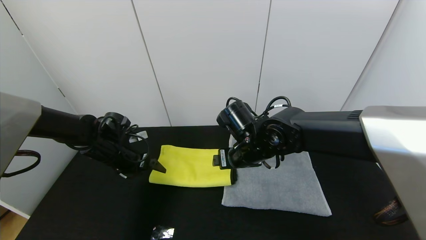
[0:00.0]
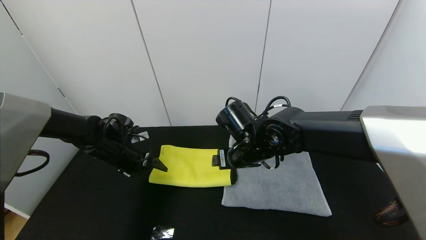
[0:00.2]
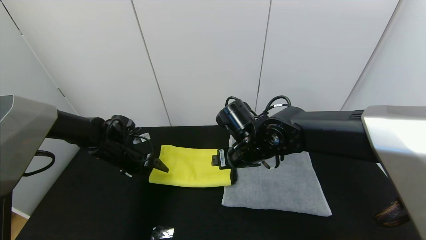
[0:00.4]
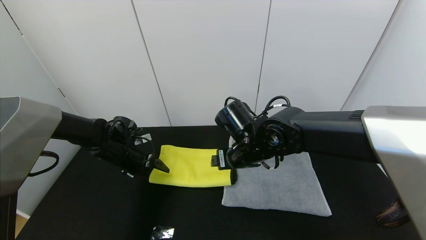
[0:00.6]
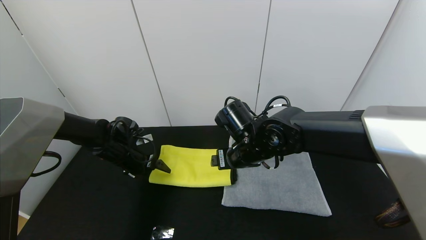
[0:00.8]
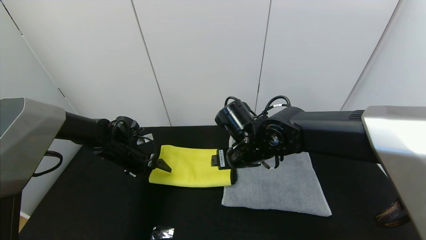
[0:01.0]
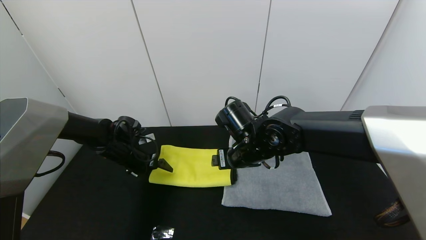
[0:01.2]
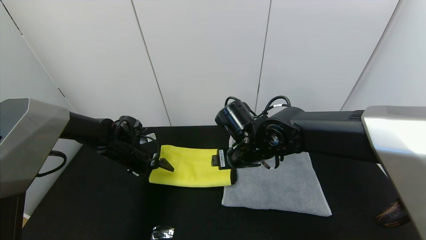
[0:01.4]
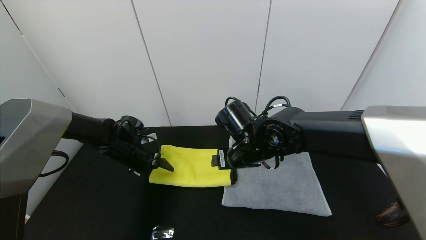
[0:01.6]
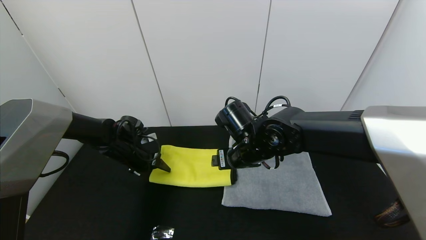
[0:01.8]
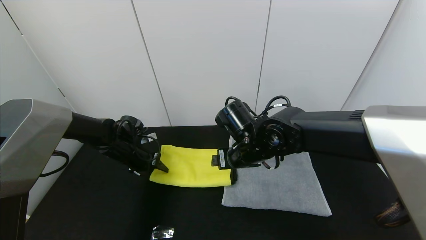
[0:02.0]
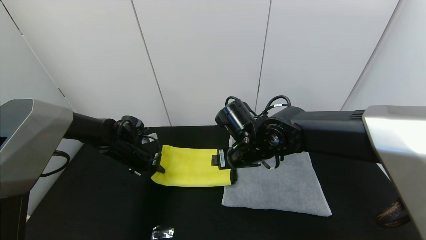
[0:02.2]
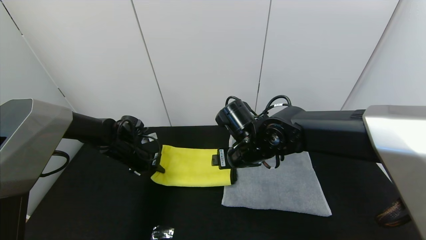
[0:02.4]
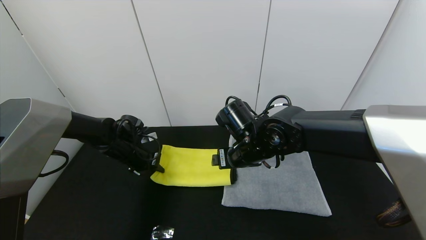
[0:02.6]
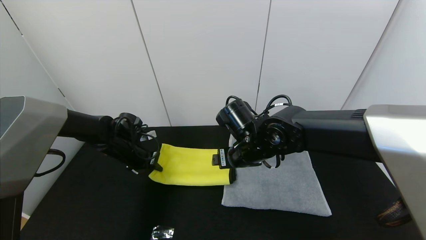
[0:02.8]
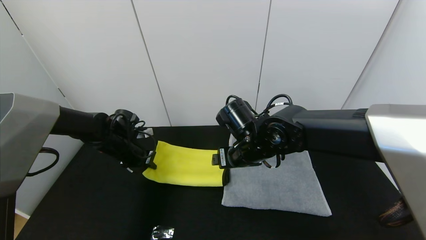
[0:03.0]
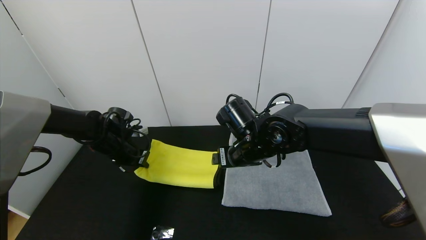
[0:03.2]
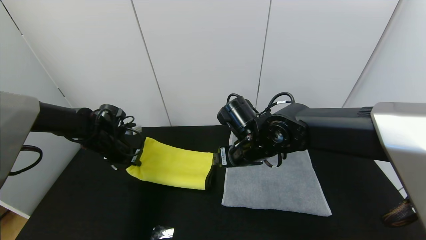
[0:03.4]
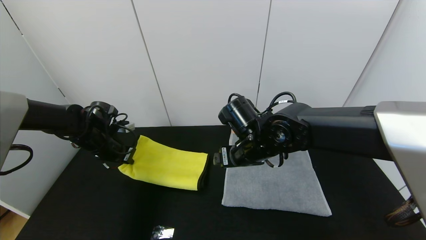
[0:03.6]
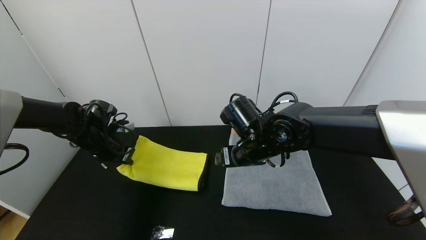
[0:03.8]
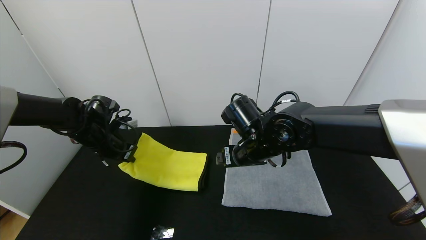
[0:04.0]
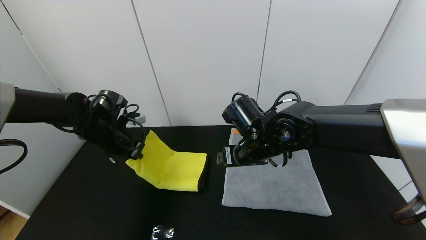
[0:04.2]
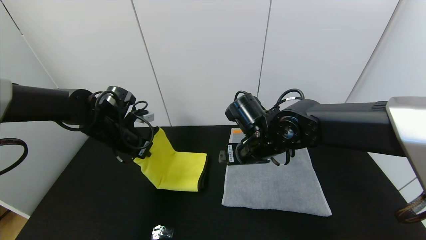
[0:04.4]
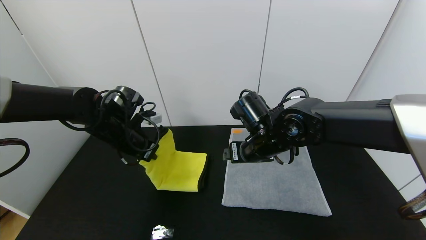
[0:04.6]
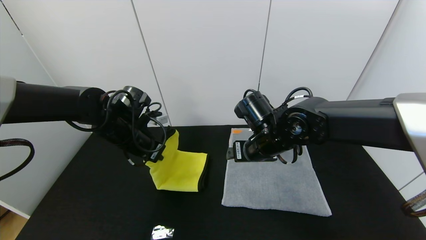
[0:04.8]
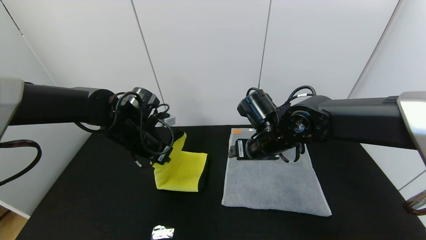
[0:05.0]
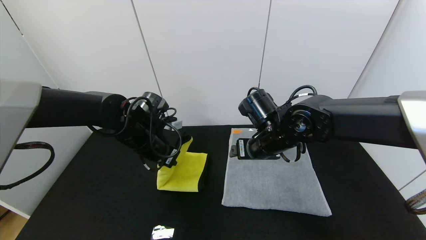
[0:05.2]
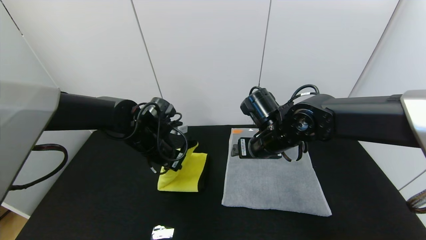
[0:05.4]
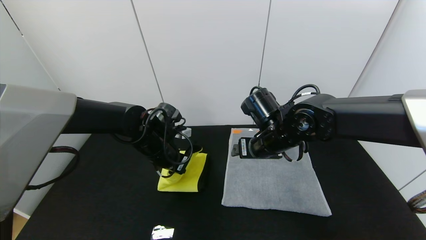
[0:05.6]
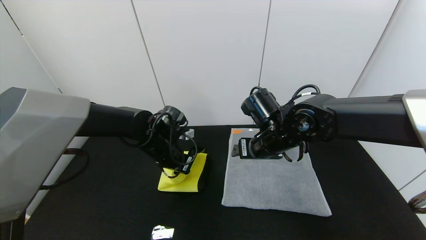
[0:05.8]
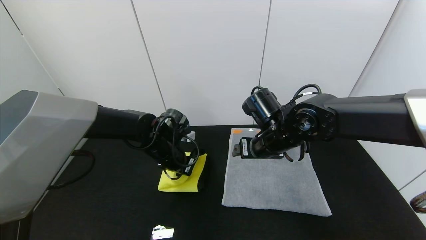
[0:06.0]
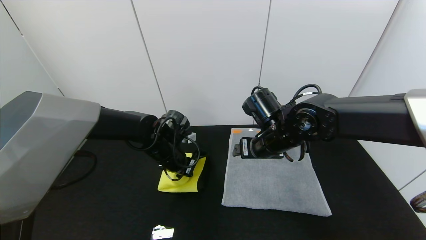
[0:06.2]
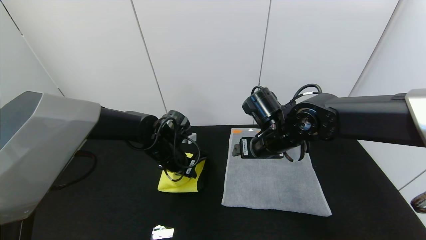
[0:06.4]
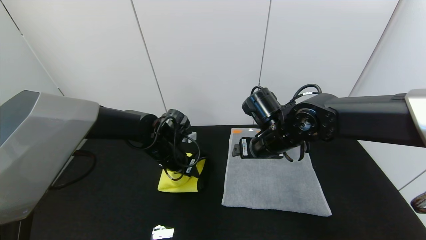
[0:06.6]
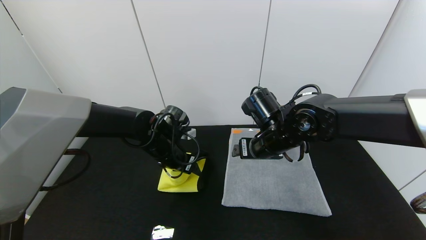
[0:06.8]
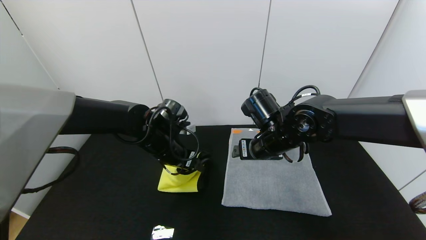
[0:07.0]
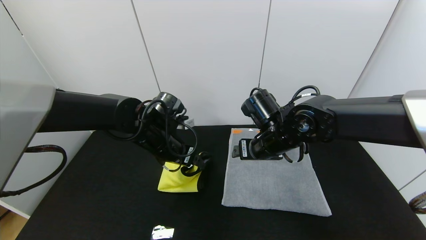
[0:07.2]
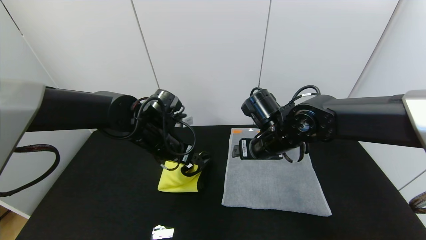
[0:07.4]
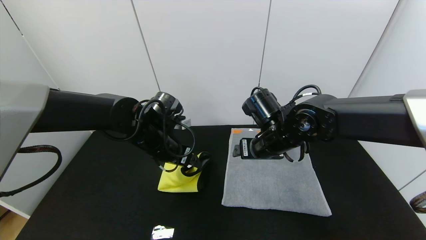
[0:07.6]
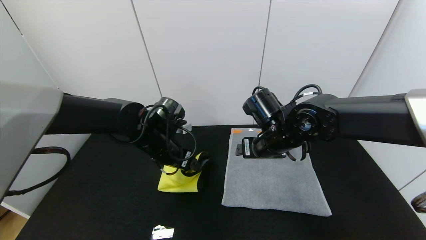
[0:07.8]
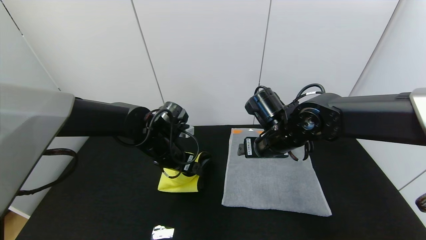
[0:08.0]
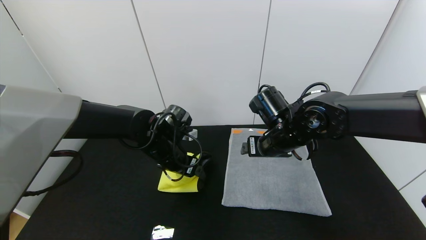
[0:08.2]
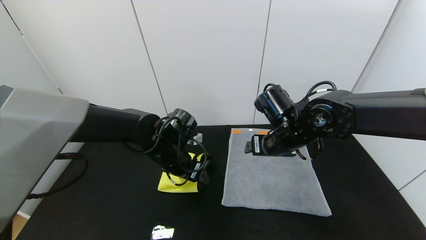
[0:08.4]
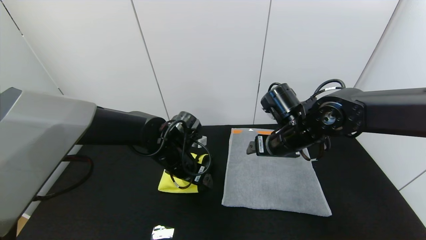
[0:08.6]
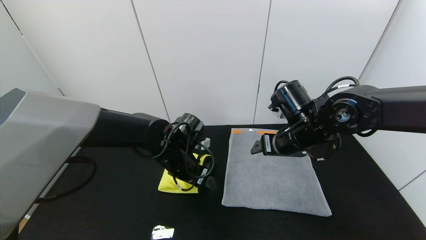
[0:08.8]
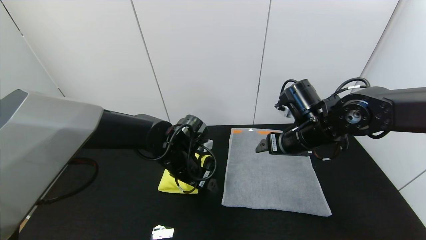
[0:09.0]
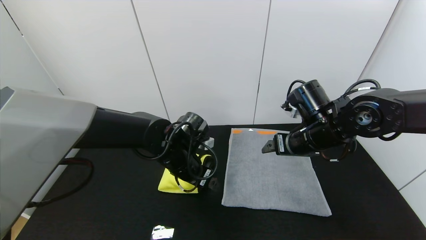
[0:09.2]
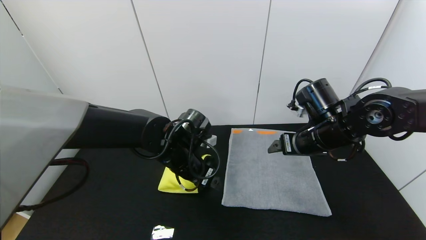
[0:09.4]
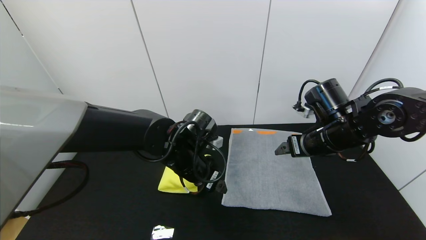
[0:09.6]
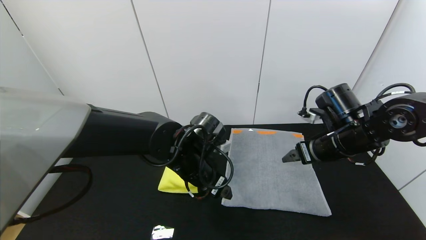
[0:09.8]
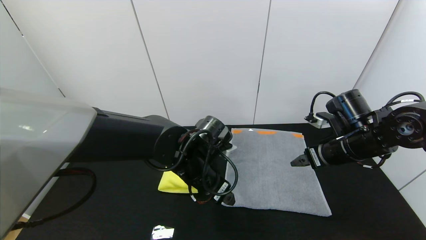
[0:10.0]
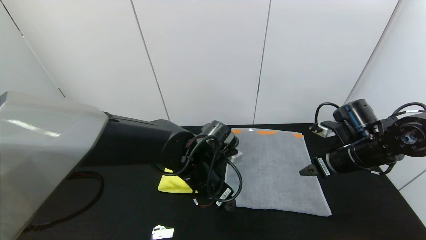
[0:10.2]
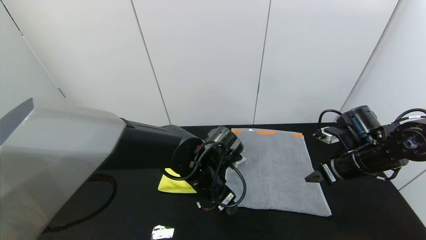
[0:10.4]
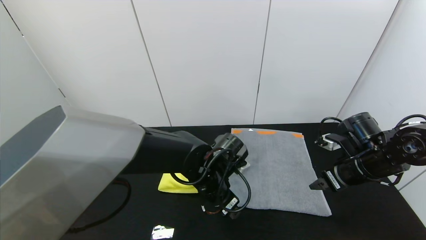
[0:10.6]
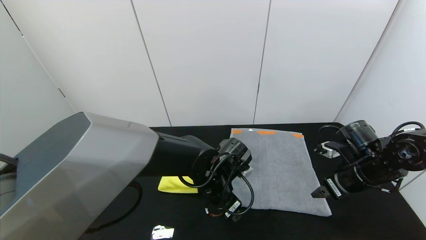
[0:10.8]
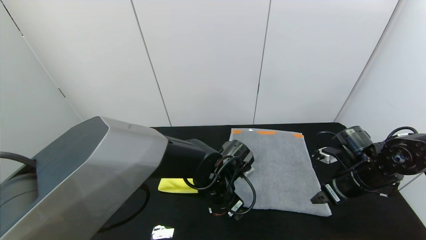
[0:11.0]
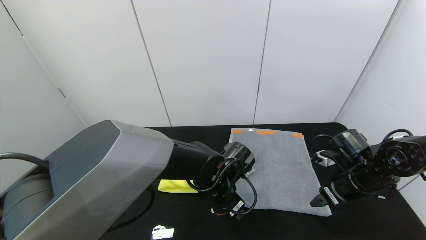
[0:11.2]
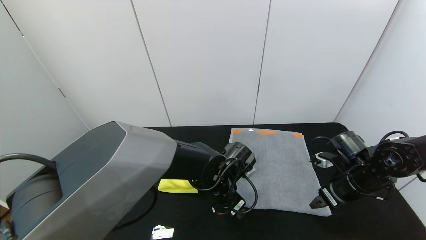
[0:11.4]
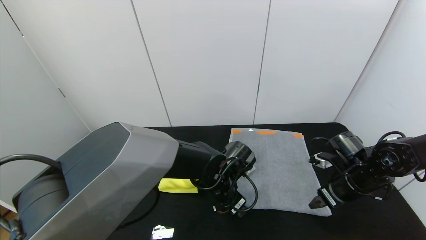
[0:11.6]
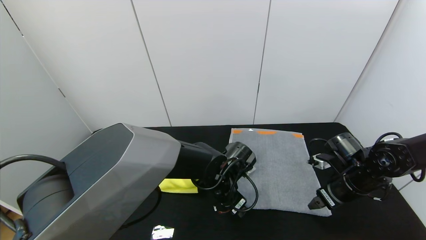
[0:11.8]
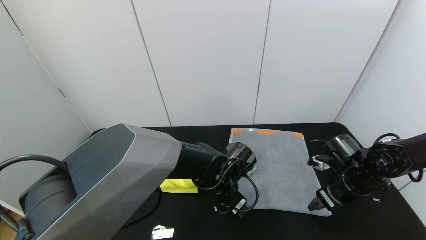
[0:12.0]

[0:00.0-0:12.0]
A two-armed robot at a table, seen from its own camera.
Task of the whole recording: Use the gripper to fold the yellow towel and grey towel in half twice,then put the yellow towel on the grey towel.
Step, 0:00.0 to 0:08.2: Fold the yellow towel from left to right with left gripper.
0:00.0 to 0:01.6: The grippers move only a little.
0:01.6 to 0:03.0: The left gripper closes its fingers.
0:03.0 to 0:04.4: The left gripper moves upward, approximately 5 cm.
0:04.4 to 0:06.0: The left gripper shifts roughly 10 cm to the right and downward.
0:06.0 to 0:07.6: The left gripper changes place by about 5 cm, and opens up.
0:07.6 to 0:09.0: The right gripper travels to the right by some 5 cm. The left gripper ends up approximately 5 cm from where it was.
0:09.0 to 0:10.4: The right gripper travels to the right by about 10 cm, while the left gripper shifts approximately 5 cm to the right.
0:10.4 to 0:12.0: The grippers both shift downward by some 5 cm.

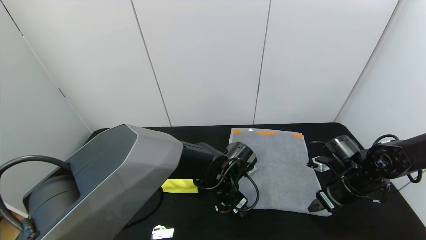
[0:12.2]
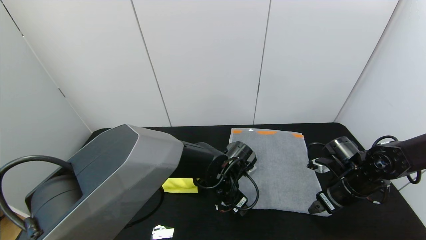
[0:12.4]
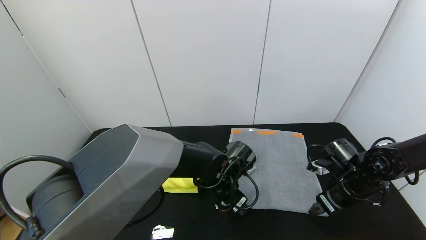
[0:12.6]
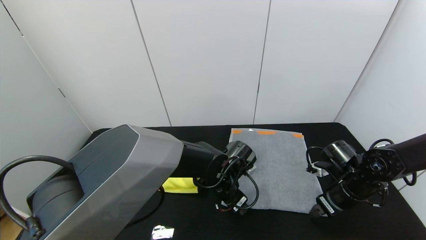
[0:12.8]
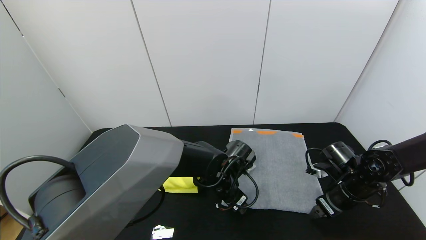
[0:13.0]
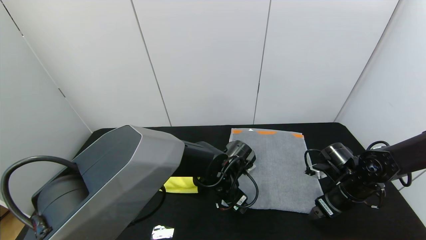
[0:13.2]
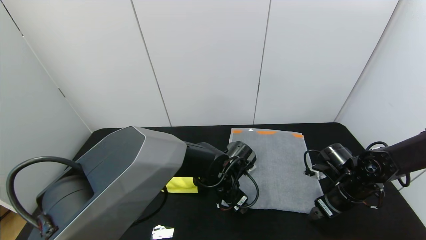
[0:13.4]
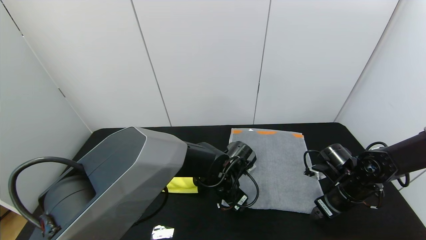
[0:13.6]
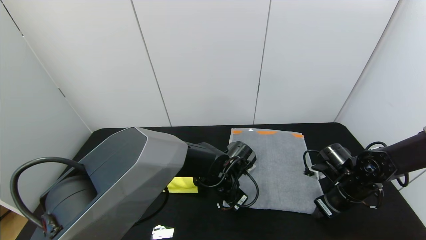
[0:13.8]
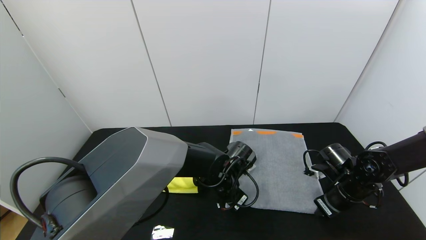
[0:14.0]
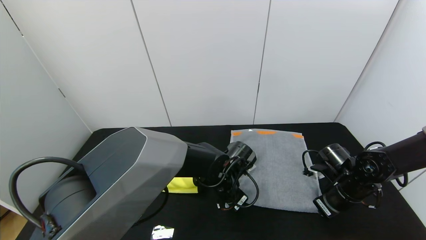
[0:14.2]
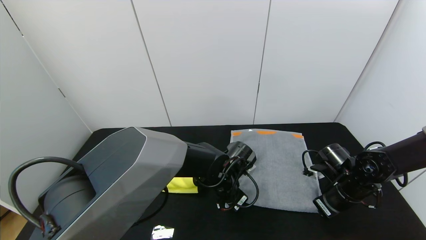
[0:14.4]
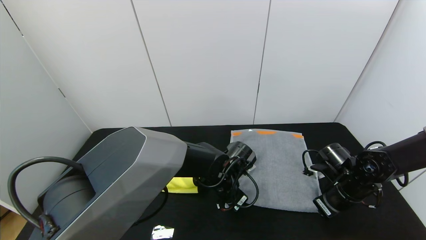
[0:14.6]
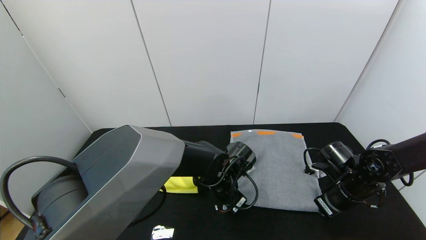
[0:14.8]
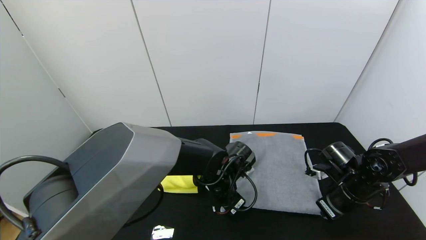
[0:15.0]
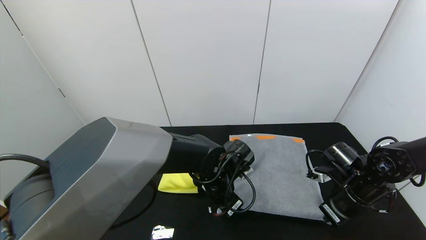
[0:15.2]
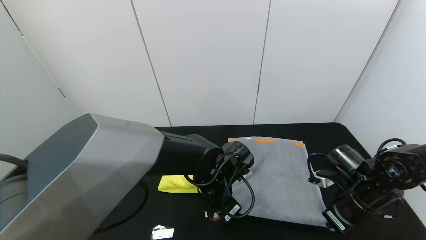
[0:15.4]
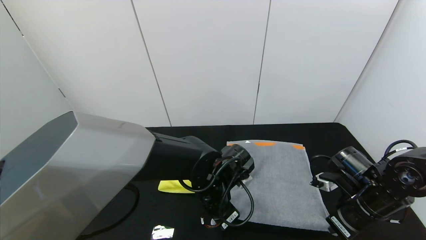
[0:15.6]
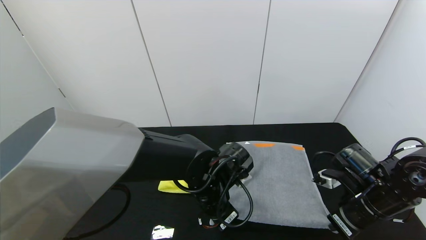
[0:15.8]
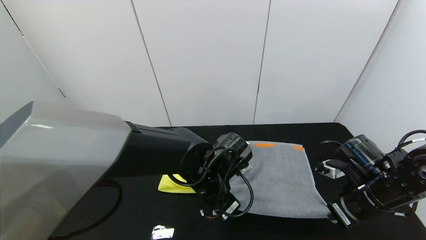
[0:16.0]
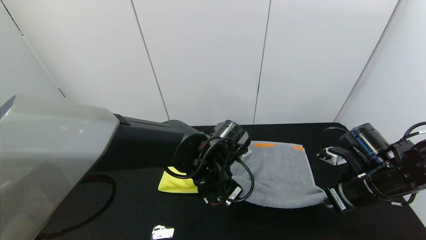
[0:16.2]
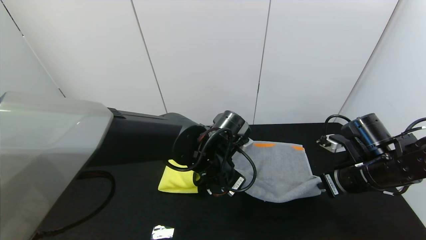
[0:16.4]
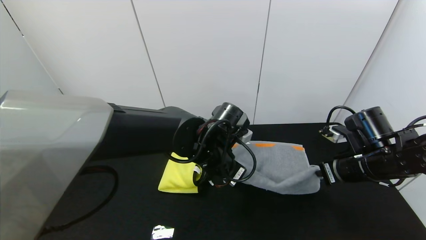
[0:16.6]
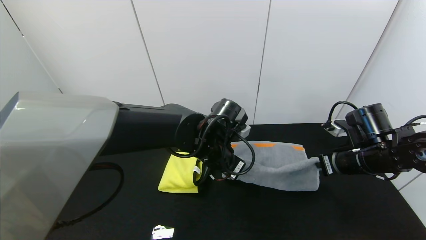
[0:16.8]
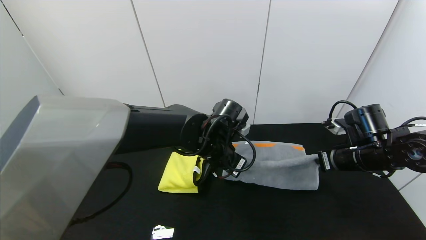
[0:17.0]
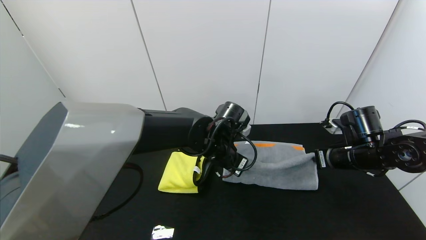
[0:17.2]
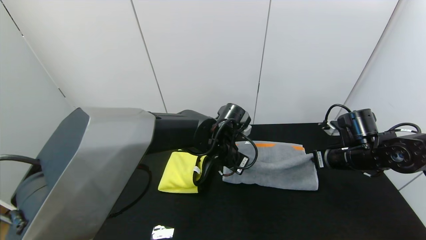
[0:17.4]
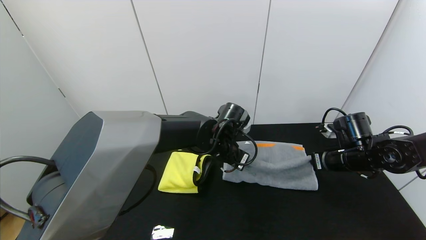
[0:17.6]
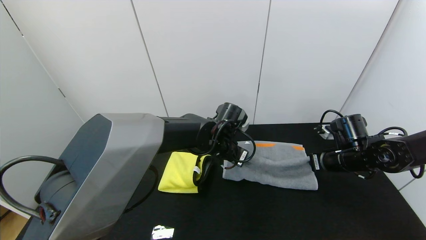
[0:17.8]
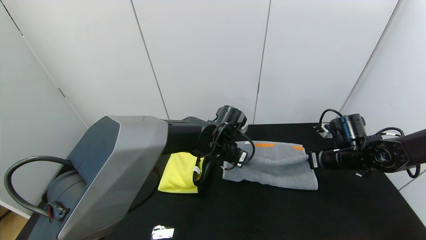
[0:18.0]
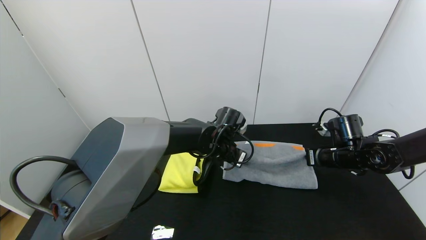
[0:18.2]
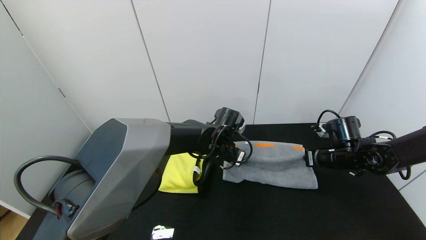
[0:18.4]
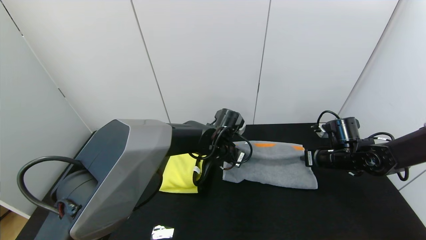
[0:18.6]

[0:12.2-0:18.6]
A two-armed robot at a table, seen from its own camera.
Task of the whole recording: Use the gripper to fold the yellow towel and grey towel in half twice,then put the yellow towel on the grey towel.
0:12.2 to 0:13.8: The right gripper closes its fingers; the left gripper closes up.
0:13.8 to 0:15.4: The left gripper changes place by about 5 cm, and closes; the right gripper moves about 5 cm, and closes its fingers.
0:15.4 to 0:17.0: The right gripper is displaced forward and upward by approximately 10 cm, while the left gripper heads upward, covering roughly 5 cm.
0:17.0 to 0:18.6: The right gripper is displaced downward and forward by some 10 cm, and opens up. The left gripper is displaced forward and downward by some 10 cm, and opens up.
